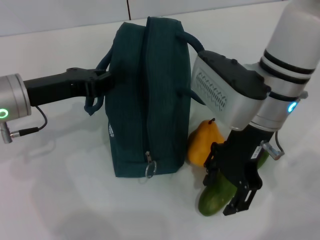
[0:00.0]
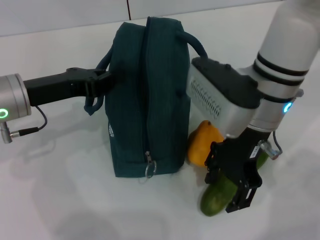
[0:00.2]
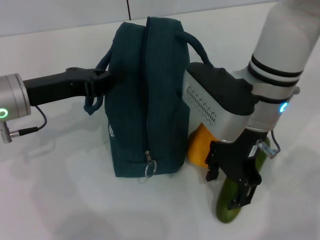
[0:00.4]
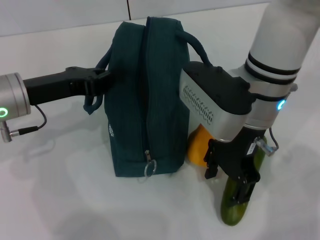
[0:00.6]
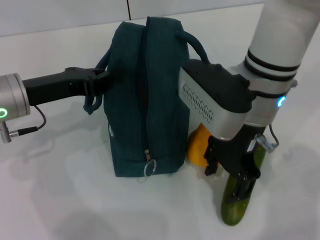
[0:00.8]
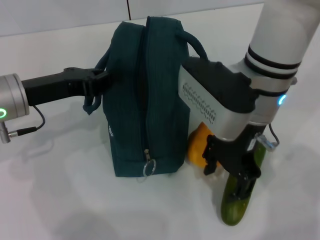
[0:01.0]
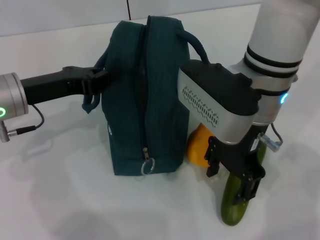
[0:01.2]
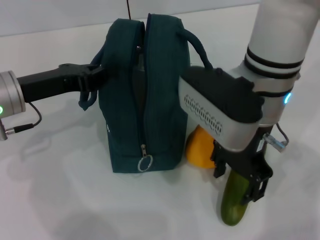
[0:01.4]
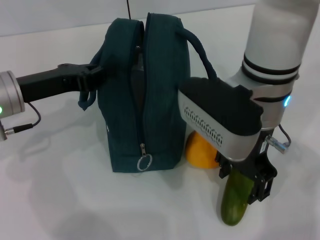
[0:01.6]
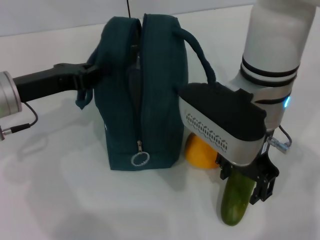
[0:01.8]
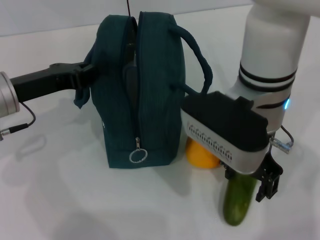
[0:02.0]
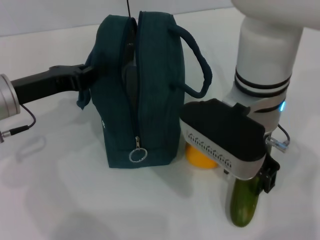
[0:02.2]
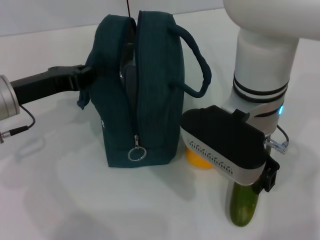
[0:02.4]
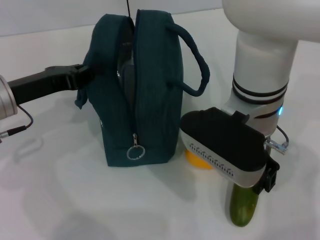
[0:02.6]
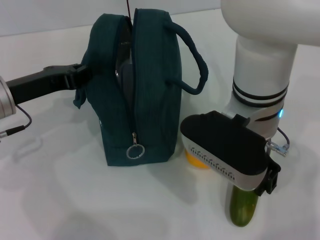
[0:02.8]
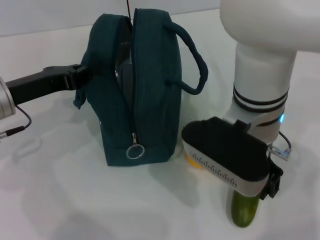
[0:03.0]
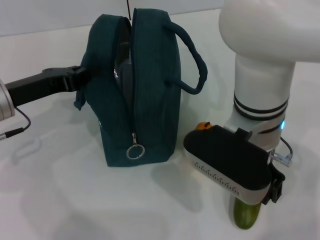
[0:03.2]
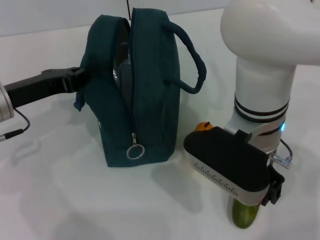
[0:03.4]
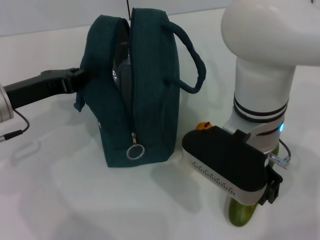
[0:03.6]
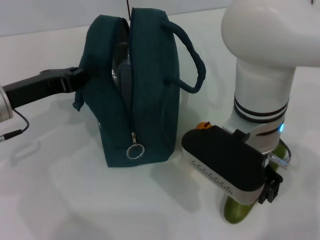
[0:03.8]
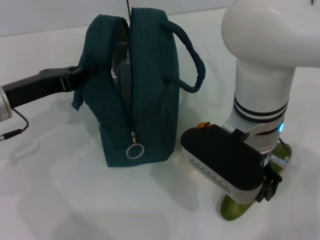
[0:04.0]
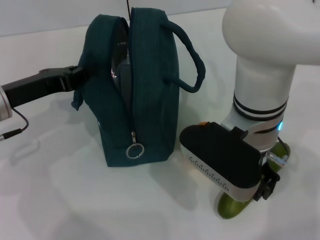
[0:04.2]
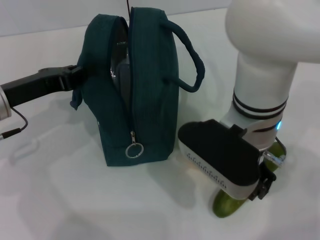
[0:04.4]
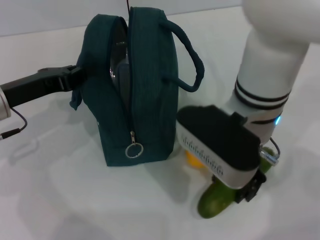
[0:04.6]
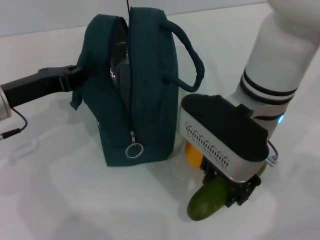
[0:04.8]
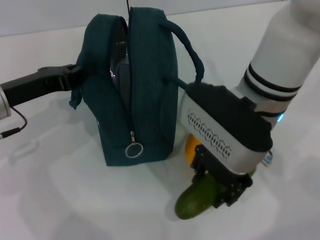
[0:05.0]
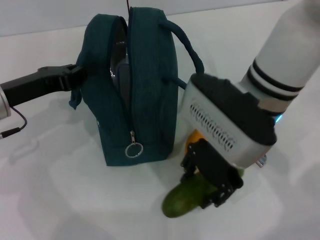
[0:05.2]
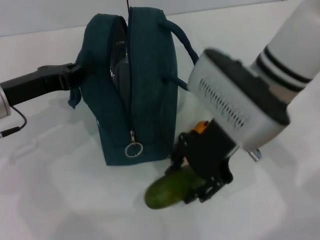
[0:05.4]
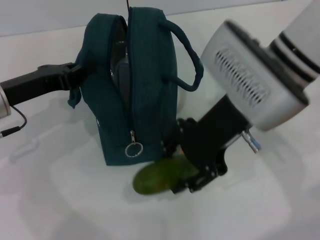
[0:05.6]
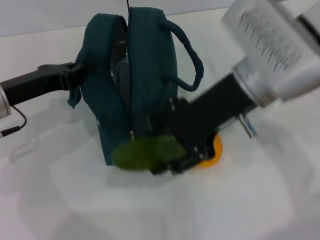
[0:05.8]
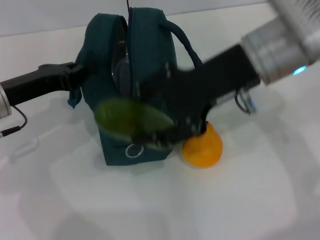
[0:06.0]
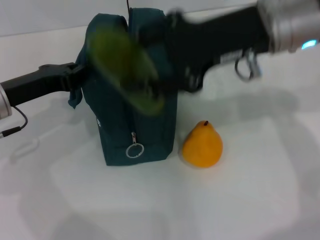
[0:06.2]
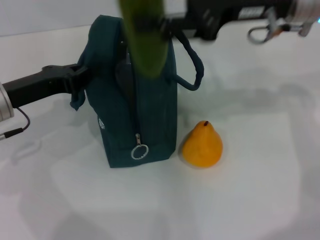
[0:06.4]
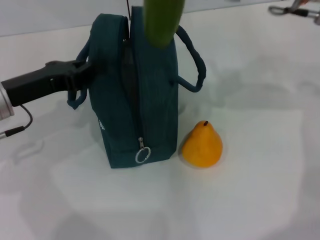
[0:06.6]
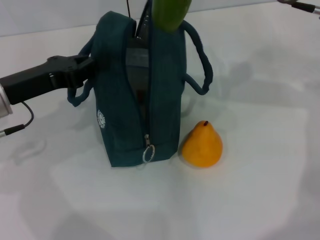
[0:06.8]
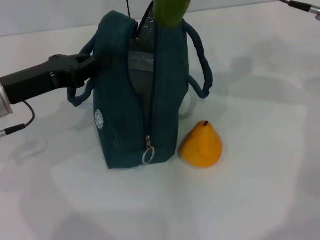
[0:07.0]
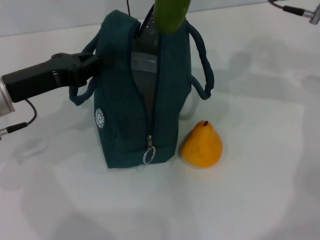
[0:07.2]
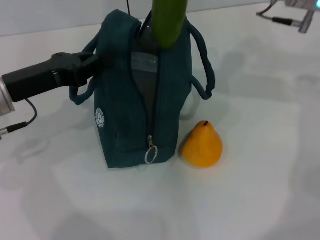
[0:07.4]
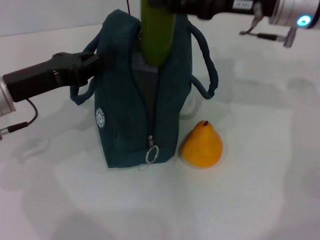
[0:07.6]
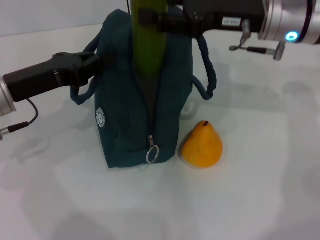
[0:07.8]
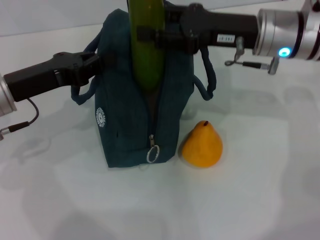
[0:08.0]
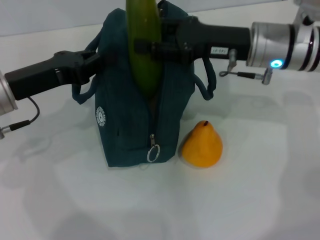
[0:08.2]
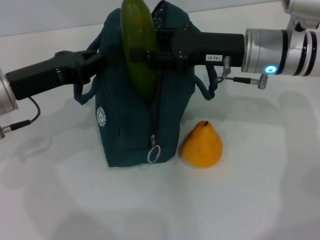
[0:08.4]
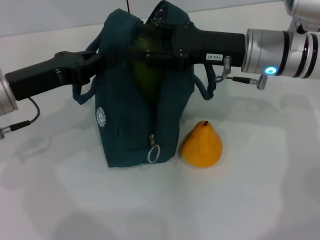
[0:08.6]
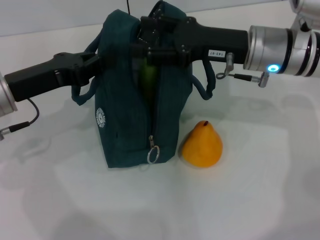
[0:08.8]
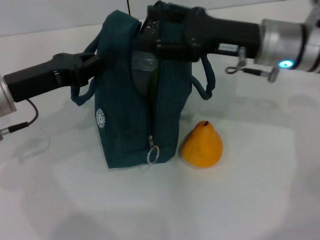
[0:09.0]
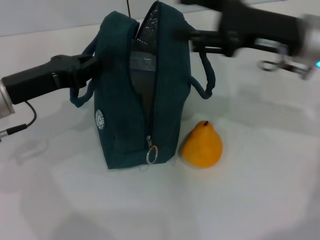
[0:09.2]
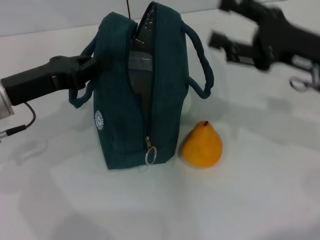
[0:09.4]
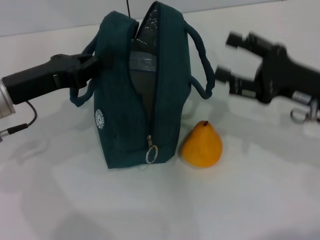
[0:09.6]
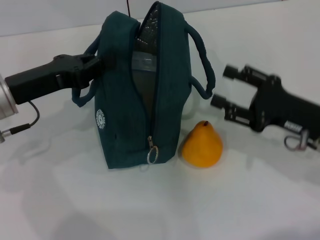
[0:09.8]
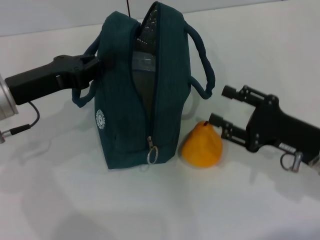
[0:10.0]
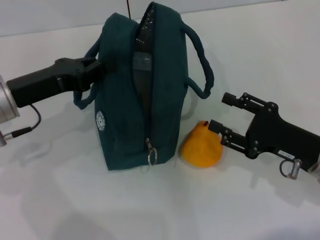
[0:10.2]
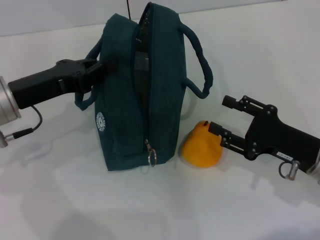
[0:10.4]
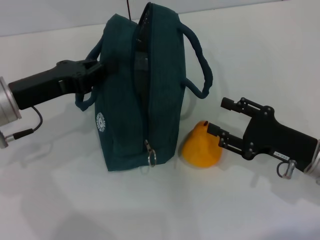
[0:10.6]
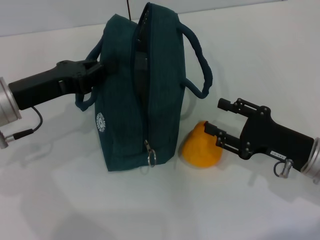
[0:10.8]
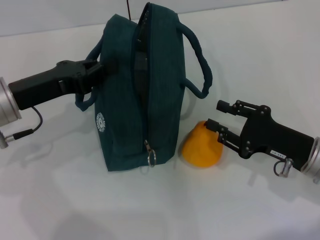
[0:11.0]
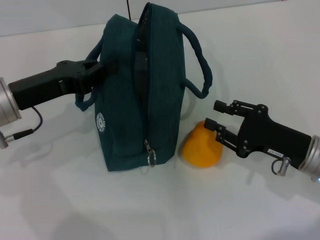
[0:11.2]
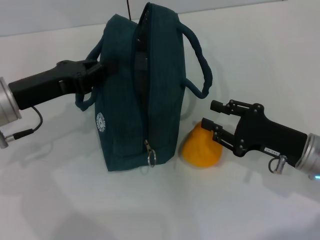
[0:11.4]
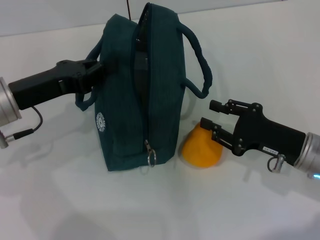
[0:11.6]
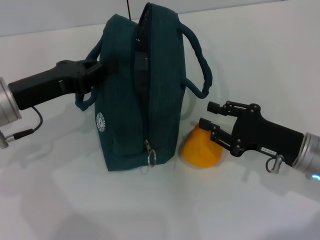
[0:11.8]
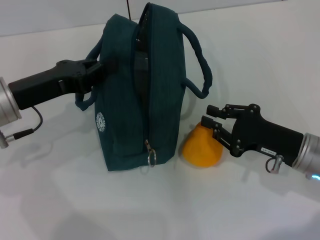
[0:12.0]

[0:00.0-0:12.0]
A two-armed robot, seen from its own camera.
Step, 0:00.0 to 0:04.0: Pick up the cucumber with your right hand.
Step, 0:04.2 to 0:08.8: Put the cucumber into the lunch bag with your right hand.
0:03.0 to 0:04.4: The grippers move only a little.
0:04.4 to 0:06.0: The right gripper is displaced upward and to the right by some 10 cm.
0:06.0 to 0:07.6: The right gripper is displaced forward and to the right by roughly 10 cm.
0:07.6 to 0:09.0: The right gripper changes place by about 5 cm.
0:09.0 to 0:10.4: The right gripper shifts approximately 20 cm backward, downward and to the right.
0:10.4 to 0:12.0: The right gripper closes up.

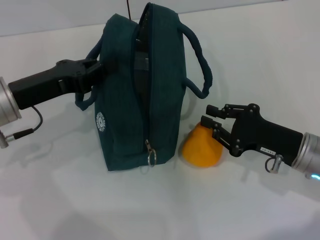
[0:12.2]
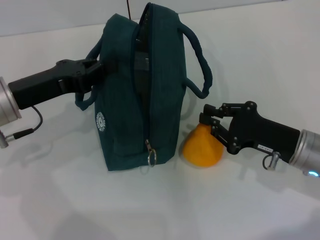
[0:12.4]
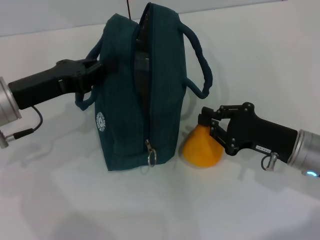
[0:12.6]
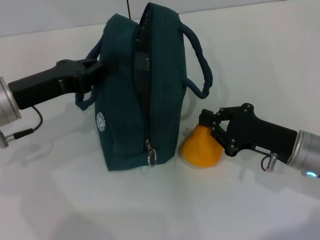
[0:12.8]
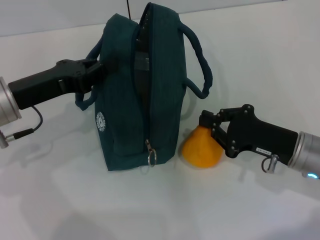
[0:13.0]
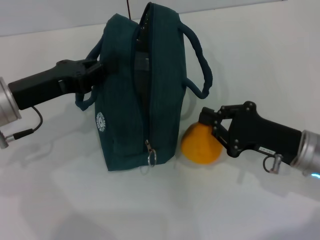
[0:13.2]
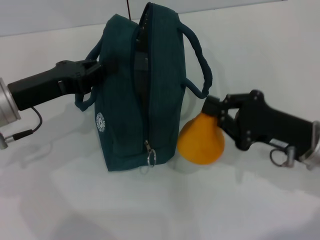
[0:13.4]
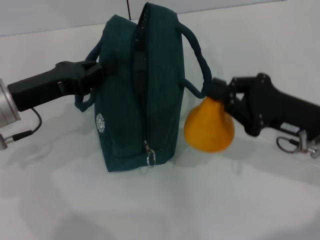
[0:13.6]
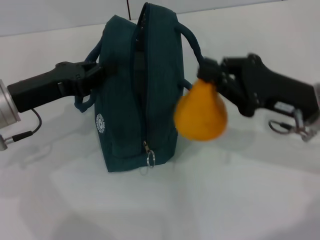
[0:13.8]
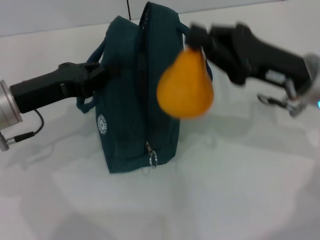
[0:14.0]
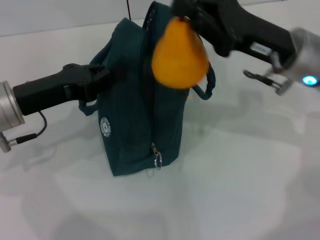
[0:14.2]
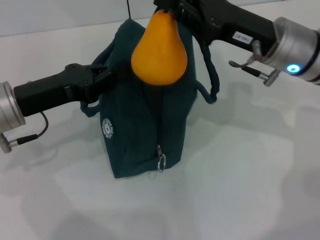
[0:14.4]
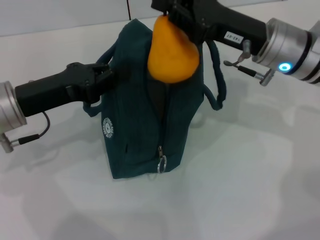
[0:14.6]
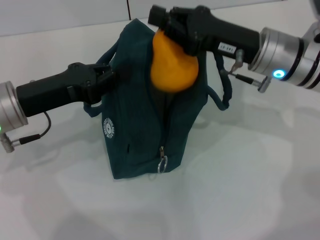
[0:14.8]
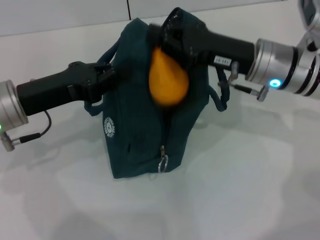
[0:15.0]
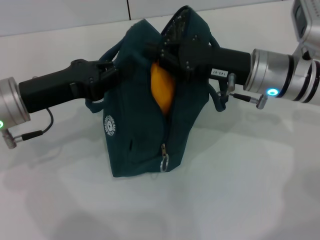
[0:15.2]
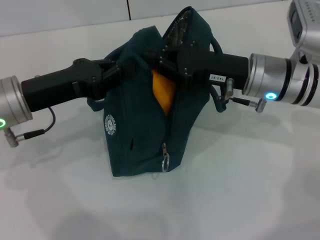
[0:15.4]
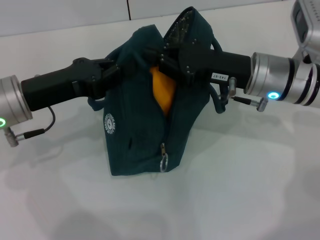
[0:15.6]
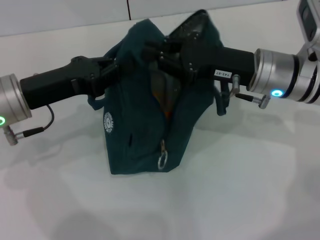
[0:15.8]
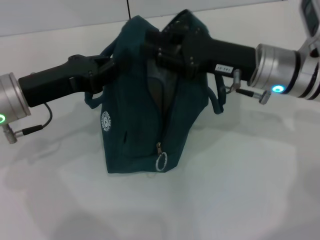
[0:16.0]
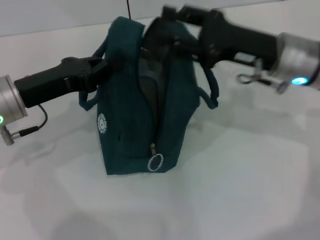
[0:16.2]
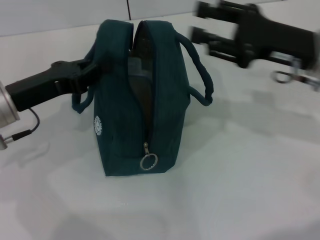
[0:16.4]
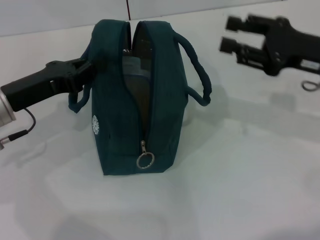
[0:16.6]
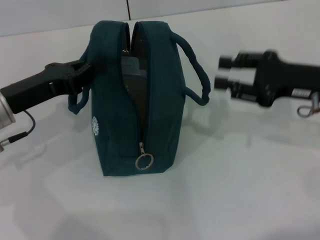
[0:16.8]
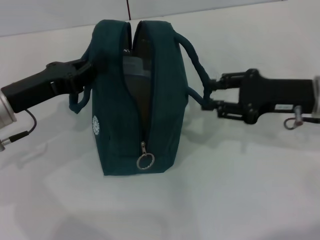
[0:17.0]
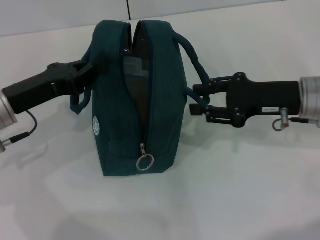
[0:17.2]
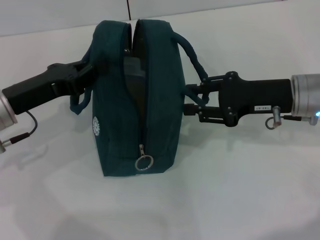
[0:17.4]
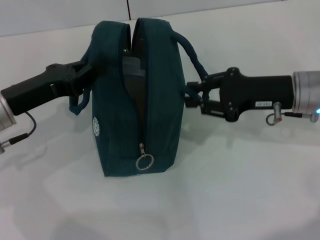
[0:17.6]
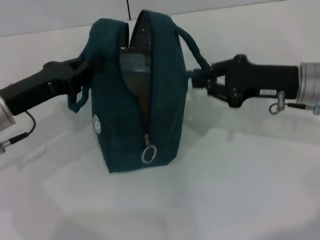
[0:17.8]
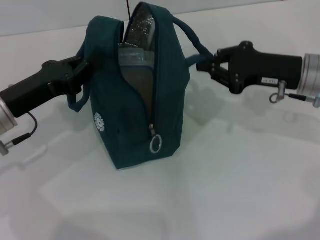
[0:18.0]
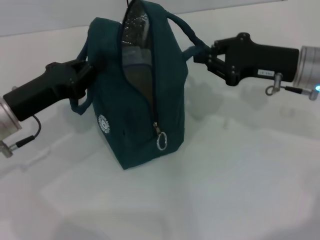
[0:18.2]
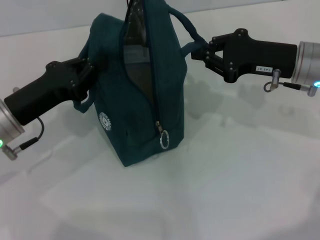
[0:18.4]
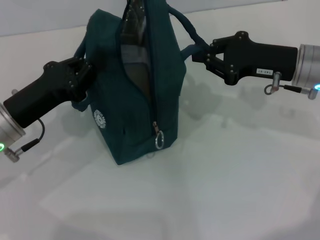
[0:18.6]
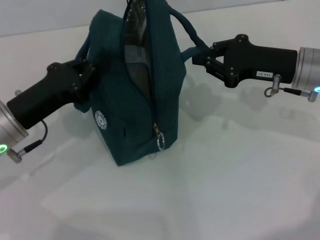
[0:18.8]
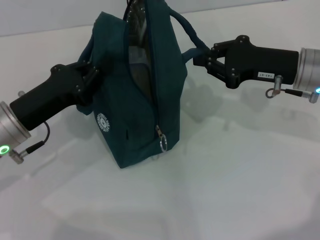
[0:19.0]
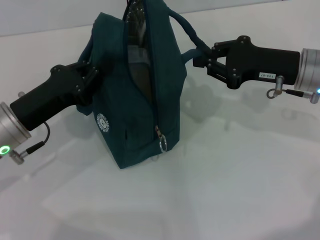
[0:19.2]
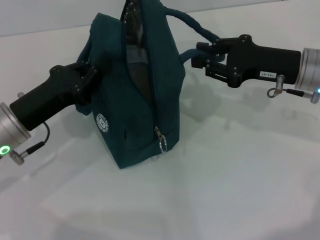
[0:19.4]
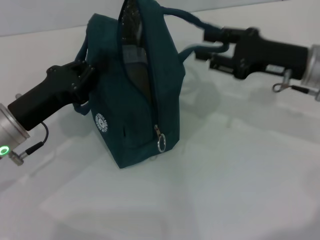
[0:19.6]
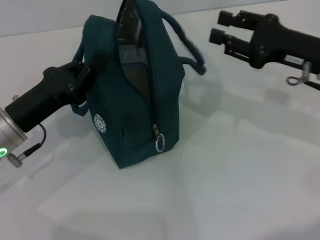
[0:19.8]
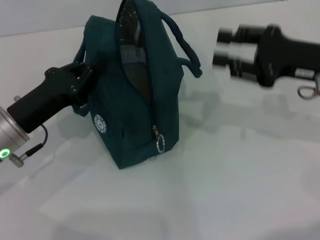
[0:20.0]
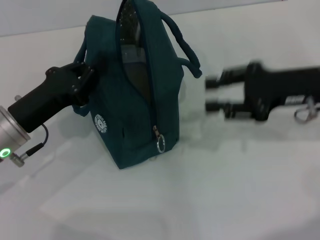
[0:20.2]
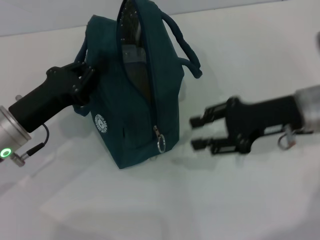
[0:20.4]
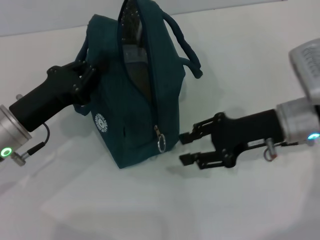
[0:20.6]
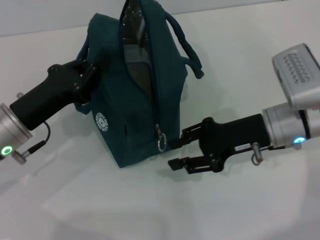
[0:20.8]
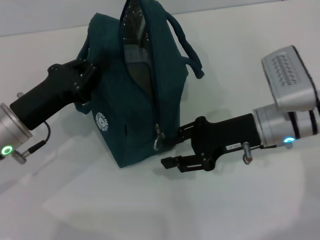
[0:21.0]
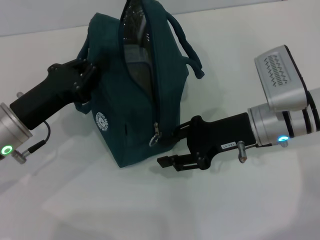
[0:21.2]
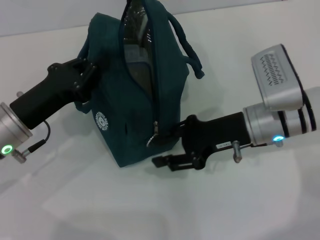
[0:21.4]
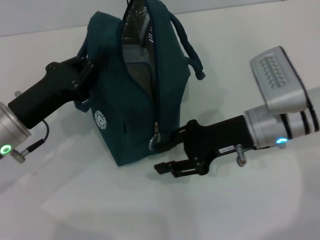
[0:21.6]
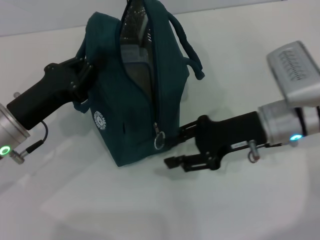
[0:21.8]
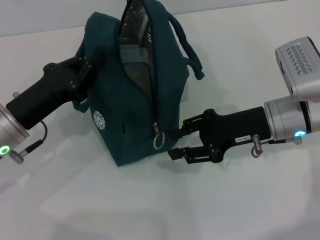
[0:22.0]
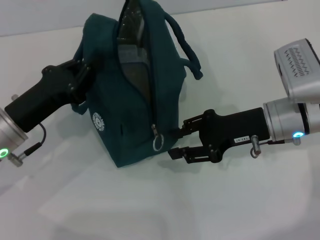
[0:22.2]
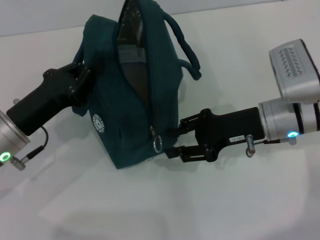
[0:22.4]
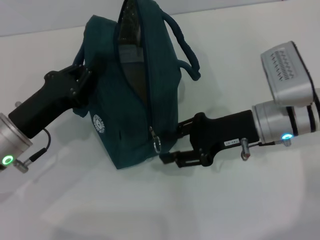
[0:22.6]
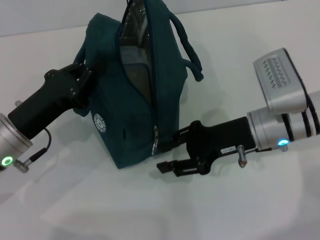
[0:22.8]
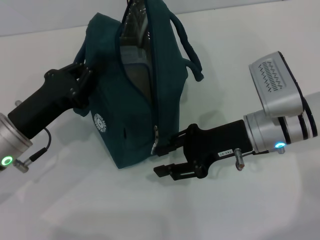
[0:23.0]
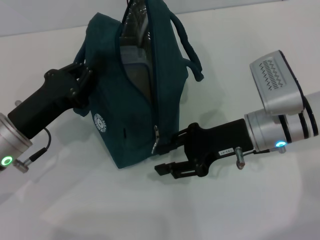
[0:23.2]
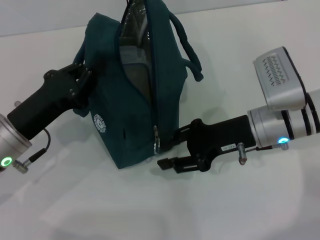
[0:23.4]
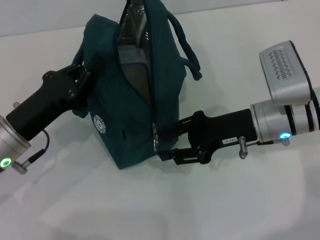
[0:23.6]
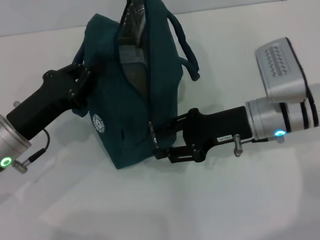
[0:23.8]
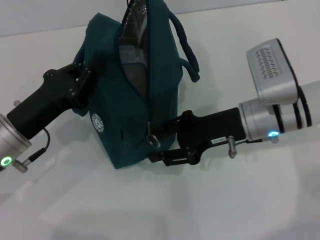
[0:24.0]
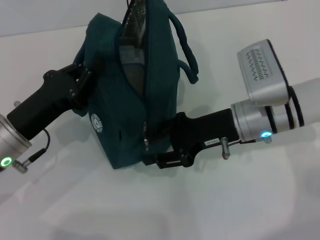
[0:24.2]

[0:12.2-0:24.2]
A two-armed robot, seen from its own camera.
Step, 0:16.0 to 0:19.6: Hold the lunch bag with your right hand.
0:12.2 to 0:13.8: The right gripper travels upward by about 5 cm.
0:13.8 to 0:15.2: The right gripper travels forward and to the left by approximately 10 cm.
0:15.2 to 0:16.6: The right gripper travels to the right by about 10 cm, and opens its fingers.
0:16.6 to 0:18.2: The right gripper closes its fingers.
0:18.2 to 0:19.8: The right gripper opens up.
0:19.8 to 0:21.2: The right gripper is displaced to the left and downward by about 10 cm.
0:21.2 to 0:24.2: There are only small adjustments of the grippers.
